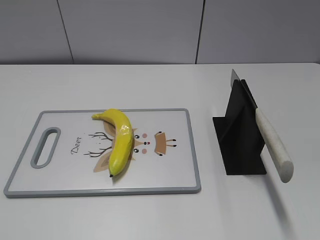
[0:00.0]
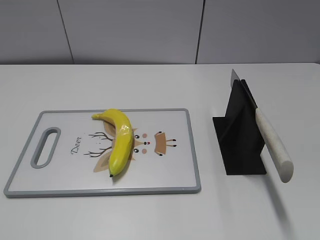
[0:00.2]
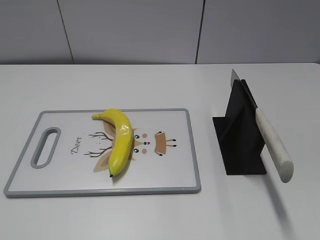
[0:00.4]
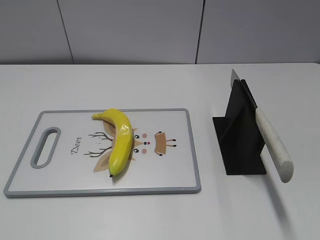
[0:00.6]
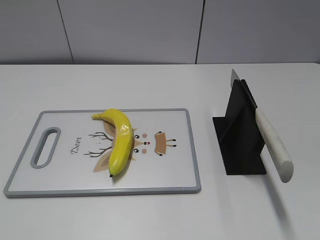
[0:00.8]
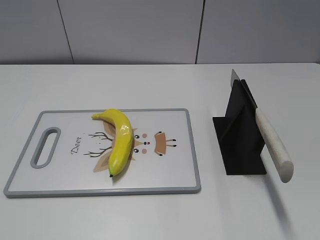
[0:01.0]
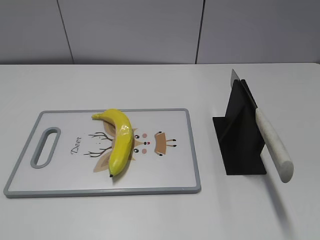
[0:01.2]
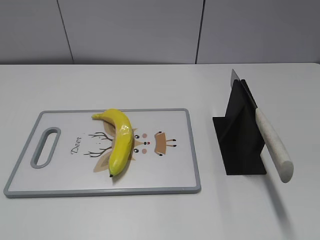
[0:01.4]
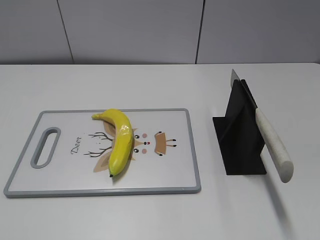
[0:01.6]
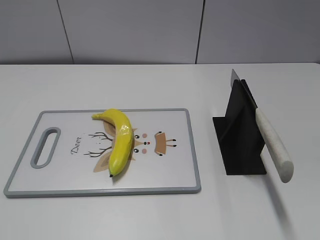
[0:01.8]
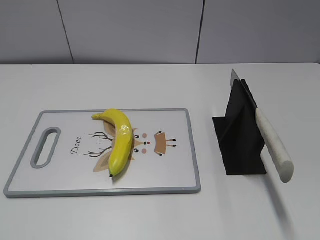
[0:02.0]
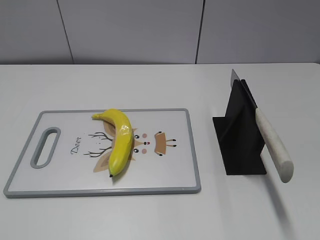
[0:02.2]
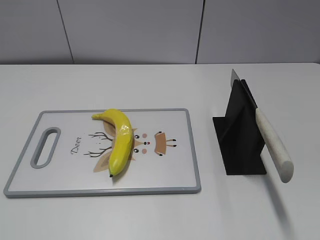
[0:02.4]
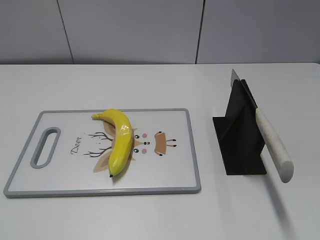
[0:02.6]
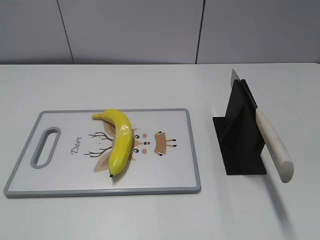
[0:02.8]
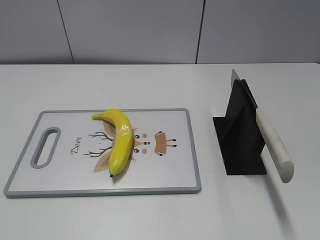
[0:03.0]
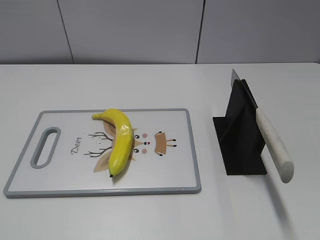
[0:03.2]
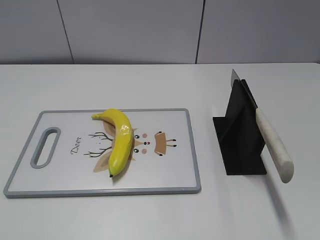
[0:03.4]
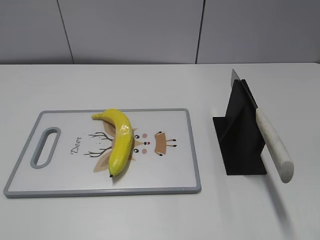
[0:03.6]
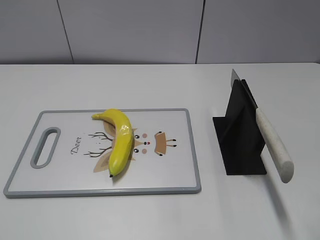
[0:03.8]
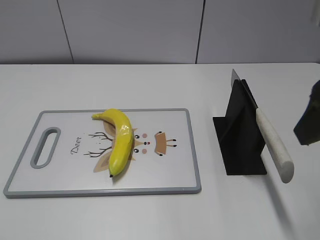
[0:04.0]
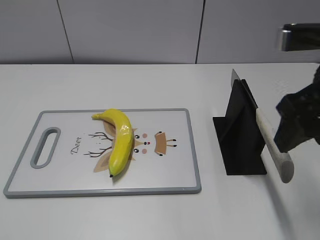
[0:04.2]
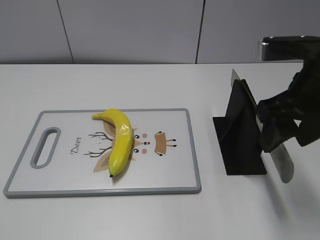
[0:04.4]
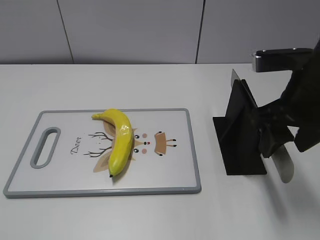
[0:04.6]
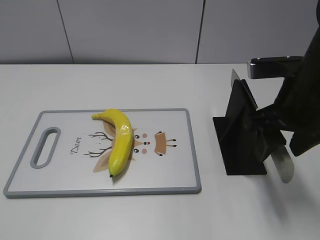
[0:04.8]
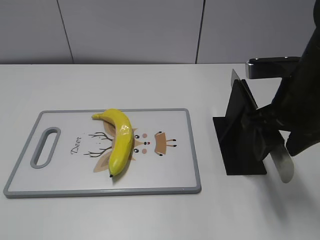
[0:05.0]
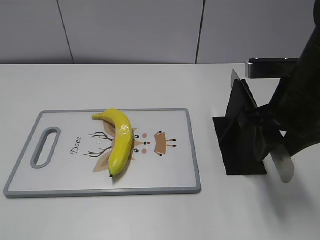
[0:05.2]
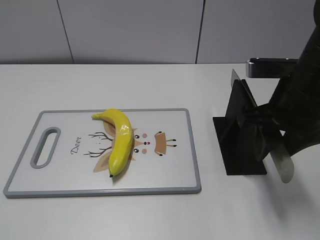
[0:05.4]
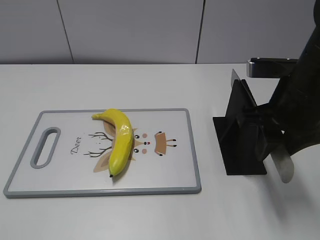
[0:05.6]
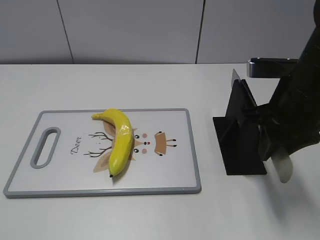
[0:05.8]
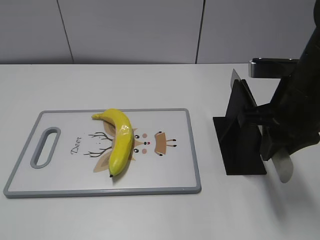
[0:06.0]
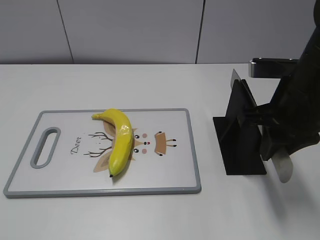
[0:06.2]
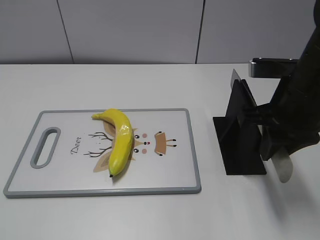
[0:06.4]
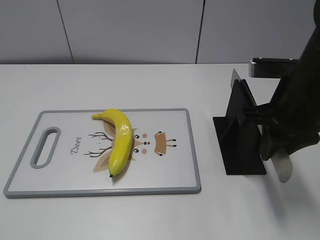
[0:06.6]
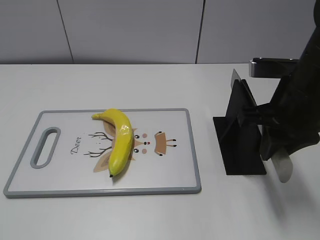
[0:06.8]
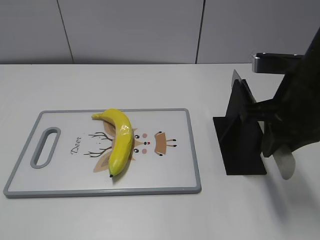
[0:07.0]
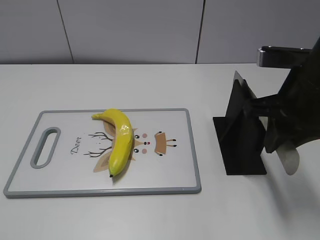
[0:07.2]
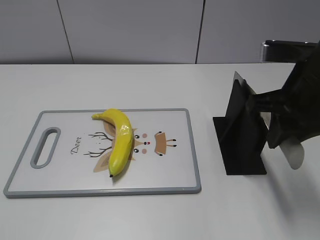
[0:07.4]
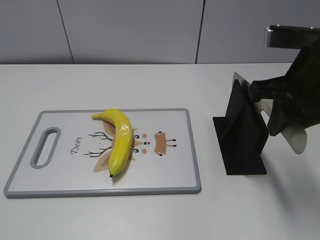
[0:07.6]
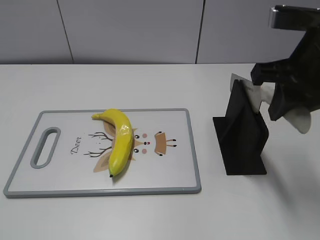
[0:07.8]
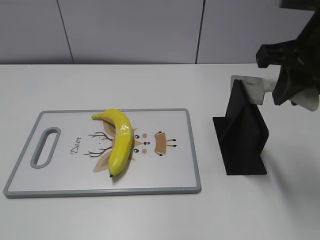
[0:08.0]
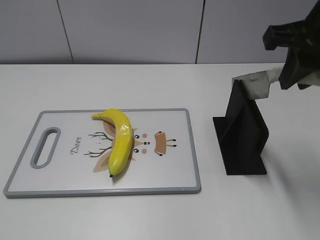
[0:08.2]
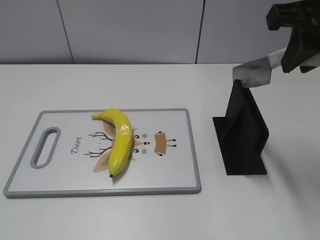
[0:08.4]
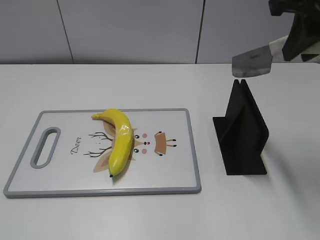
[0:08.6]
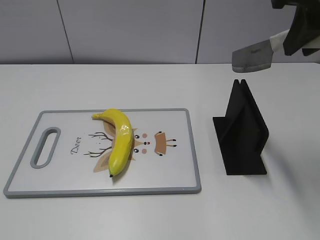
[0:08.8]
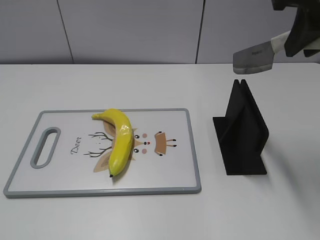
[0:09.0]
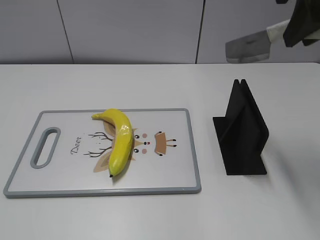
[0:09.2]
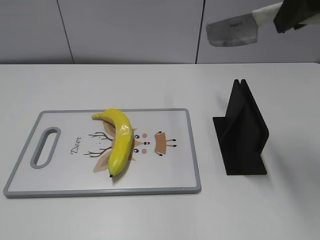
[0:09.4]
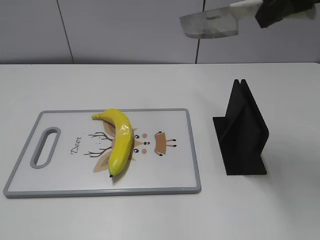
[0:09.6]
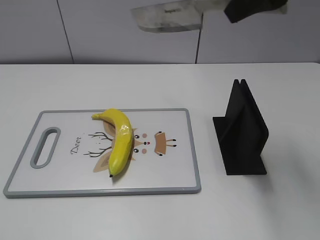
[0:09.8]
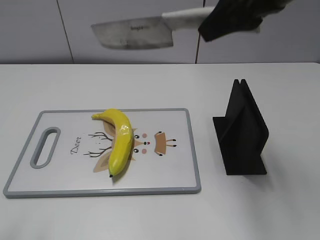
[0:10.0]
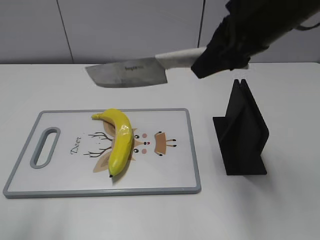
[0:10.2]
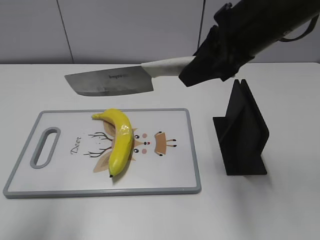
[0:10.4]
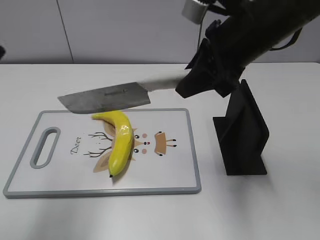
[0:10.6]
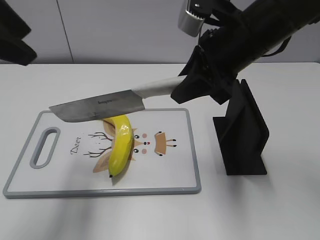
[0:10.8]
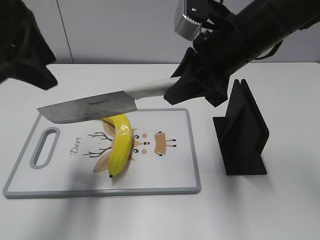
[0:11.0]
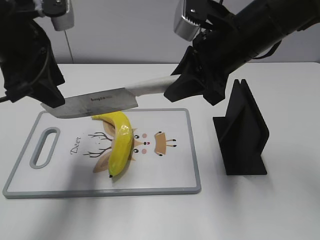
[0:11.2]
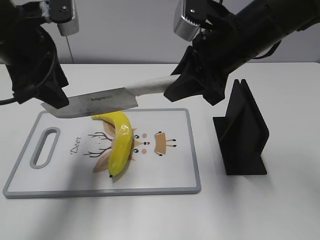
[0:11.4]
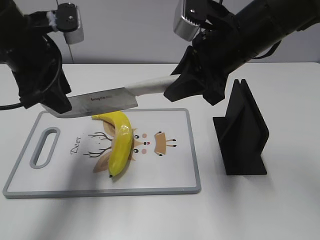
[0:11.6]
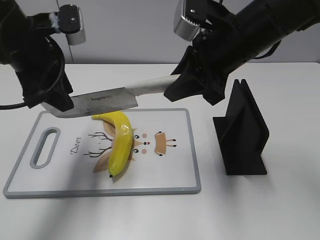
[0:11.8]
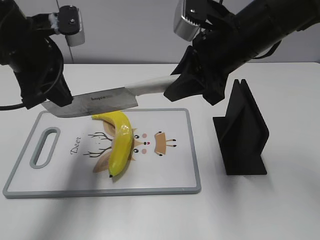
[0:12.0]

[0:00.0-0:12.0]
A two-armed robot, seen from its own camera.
Task of the whole recording: cut plastic banana.
Step, 0:00.0 to 0:07.0: Grab the knife handle with your right hand.
0:03.0 to 0:04.4: The right gripper moves forward and to the left, some 20 cm.
0:04.4 to 0:06.0: The right gripper closes its fingers.
0:06.0 to 0:07.6: The grippers move only a little.
0:07.6 to 0:09.0: The right gripper shifts about 10 cm upward.
0:09.0 to 0:10.4: The right gripper is displaced downward and to the left by roughly 10 cm. Meanwhile the left gripper travels forward and upward by about 15 cm.
0:10.4 to 0:12.0: The right gripper changes place by some 5 cm. The left gripper heads forward, downward and to the right, covering approximately 20 cm, and closes its fingers.

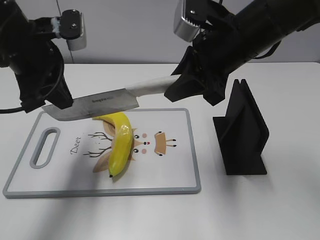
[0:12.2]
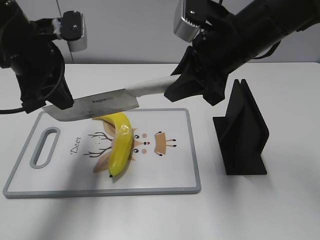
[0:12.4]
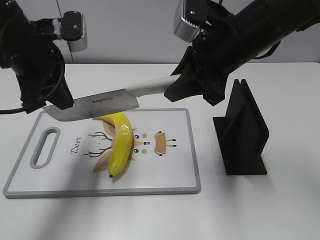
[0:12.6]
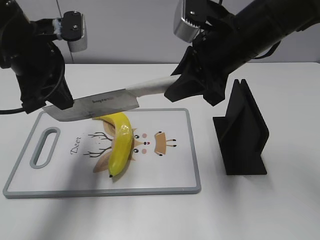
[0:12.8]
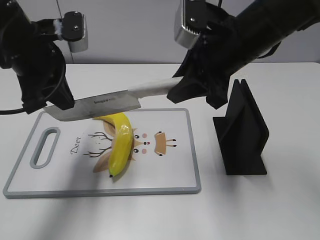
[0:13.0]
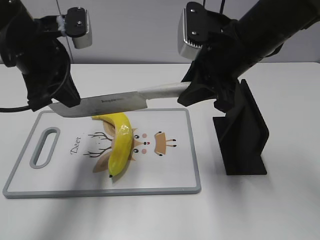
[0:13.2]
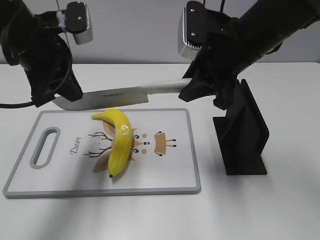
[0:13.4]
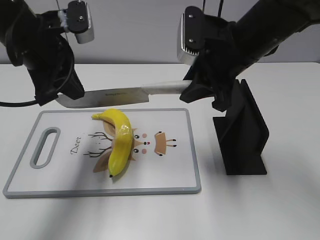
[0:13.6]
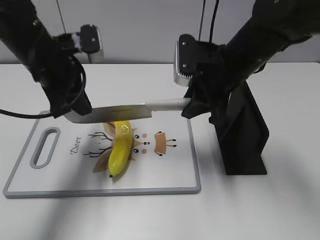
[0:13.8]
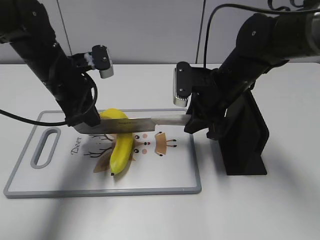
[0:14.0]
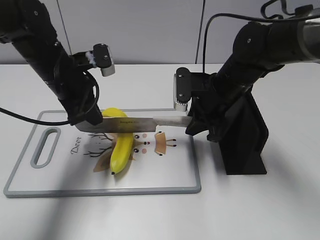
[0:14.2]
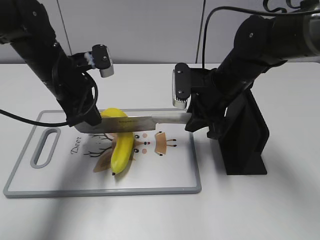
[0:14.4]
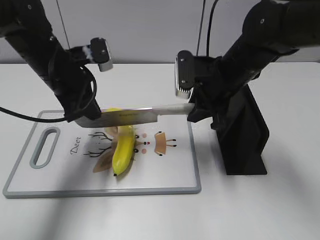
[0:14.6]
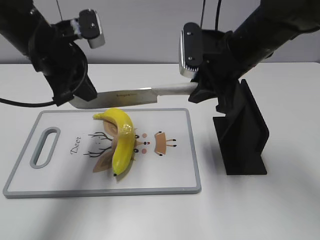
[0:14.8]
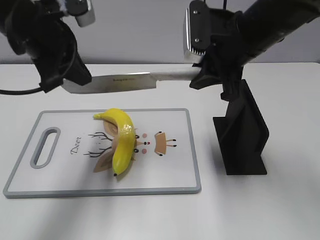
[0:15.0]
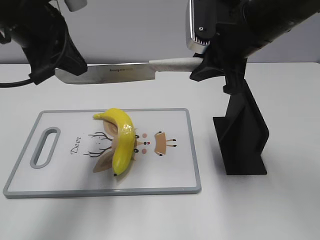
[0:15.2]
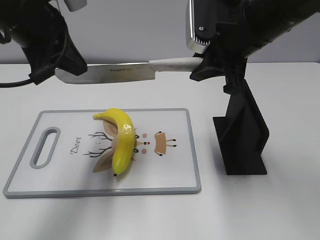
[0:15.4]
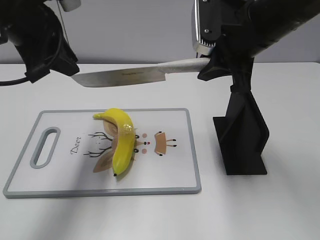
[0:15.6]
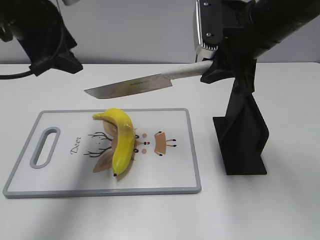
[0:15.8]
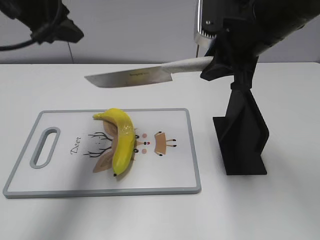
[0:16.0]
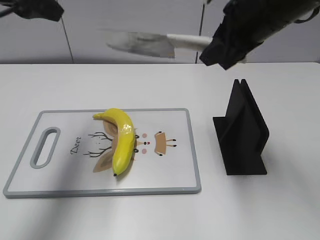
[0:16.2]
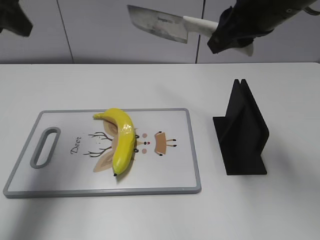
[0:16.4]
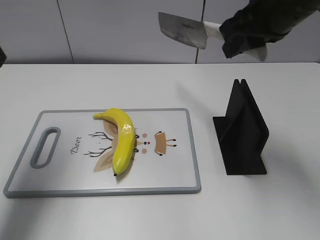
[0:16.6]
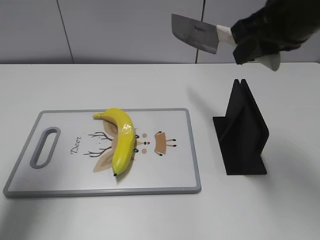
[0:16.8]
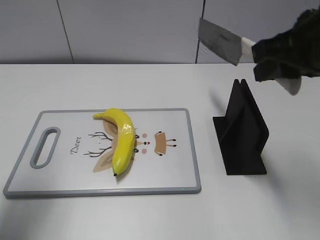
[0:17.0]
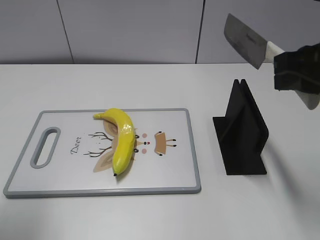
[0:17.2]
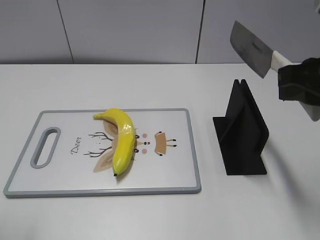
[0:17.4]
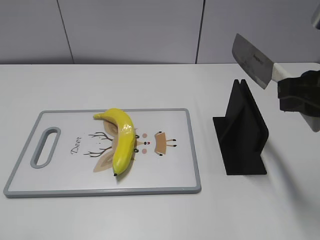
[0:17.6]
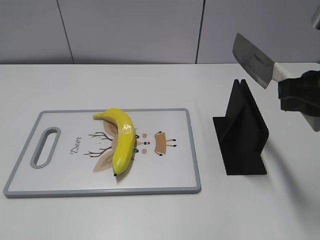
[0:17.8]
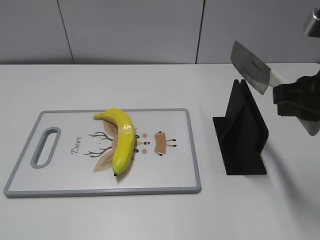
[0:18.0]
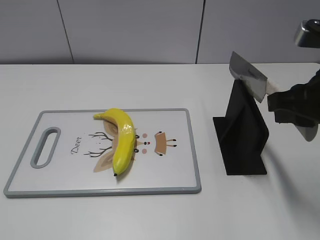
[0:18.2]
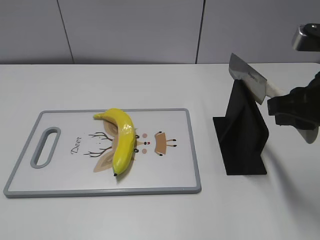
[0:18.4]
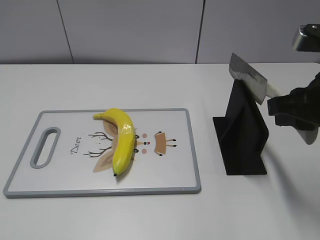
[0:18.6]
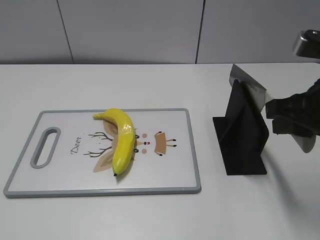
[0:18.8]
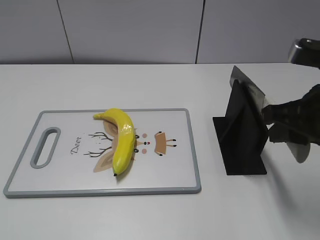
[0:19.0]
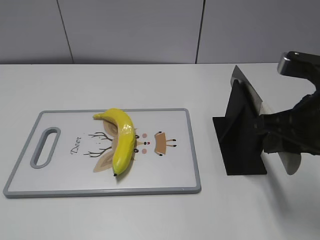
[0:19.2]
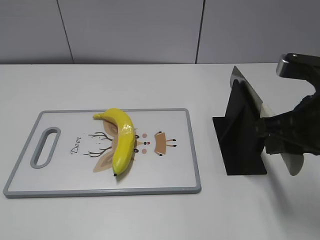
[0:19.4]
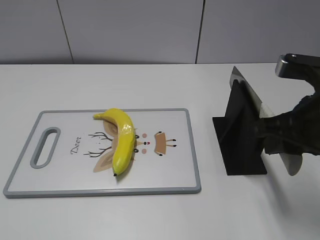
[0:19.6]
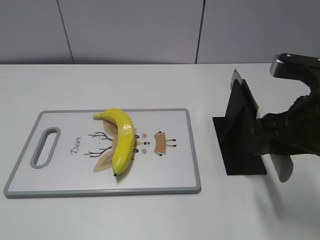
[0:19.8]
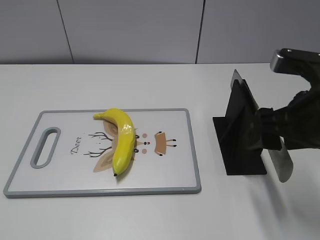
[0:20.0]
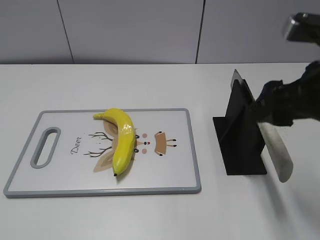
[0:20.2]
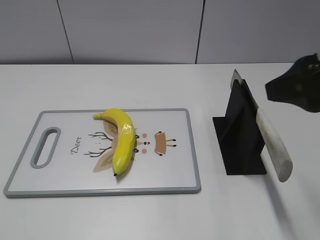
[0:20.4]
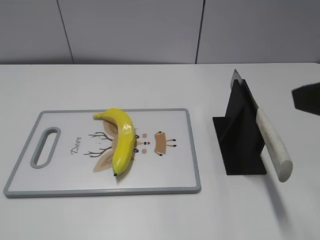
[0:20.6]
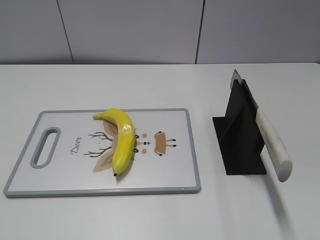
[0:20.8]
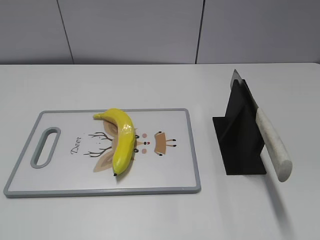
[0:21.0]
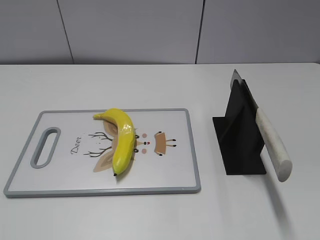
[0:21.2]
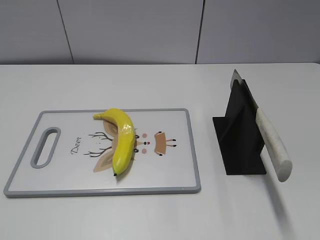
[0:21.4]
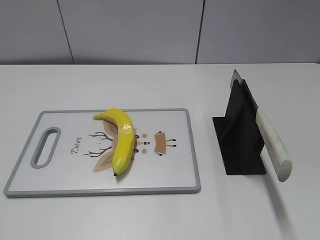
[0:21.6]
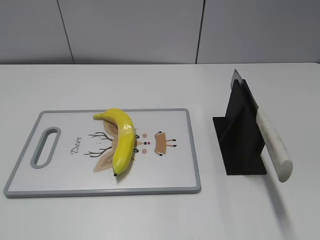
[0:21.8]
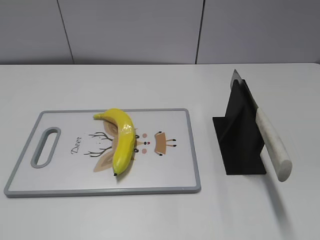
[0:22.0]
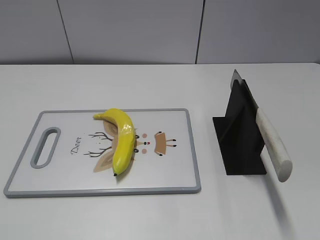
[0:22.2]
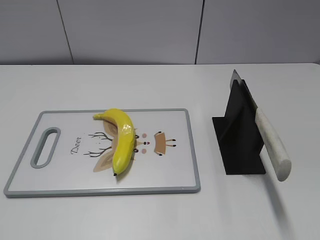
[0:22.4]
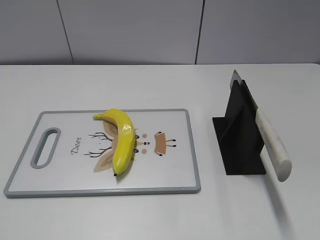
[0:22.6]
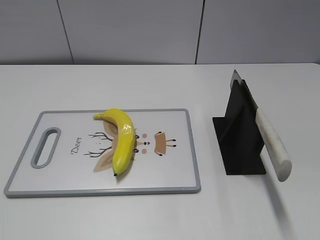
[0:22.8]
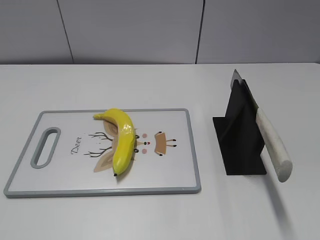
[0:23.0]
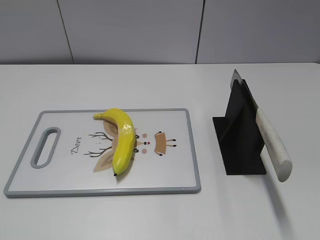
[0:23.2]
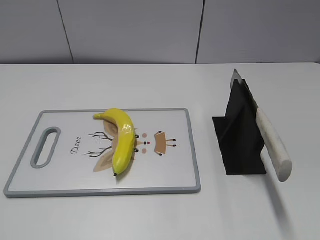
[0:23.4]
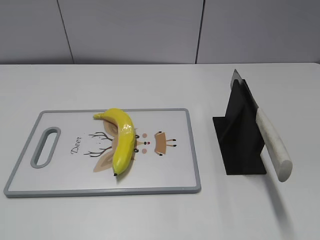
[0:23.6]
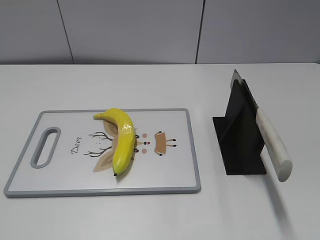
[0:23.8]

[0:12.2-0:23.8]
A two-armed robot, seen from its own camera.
Task of the whole recording: cut plastic banana.
Step, 0:12.2 to 0:15.2: Lift the knife with your right hand.
Step, 0:15.4 to 0:17.4: Cut the banana with your right hand.
Step, 0:17.8 to 0:18.6: Lift the knife with your right hand.
Step, 0:18.8 to 0:23.8: Place the knife on the storage rack with your right hand.
0:12.2 to 0:13.6: The grippers move only a little.
0:13.6 to 0:15.0: The left gripper travels downward and back again, roughly 10 cm each way, while the right gripper goes downward and returns, roughly 10 cm each way.
0:15.0 to 0:16.6: The left gripper heads to the left and upward, covering about 10 cm, and opens its fingers, while the right gripper moves upward, about 5 cm.
0:16.6 to 0:18.0: The left gripper is displaced backward by about 30 cm, while the right gripper shifts some 15 cm backward, to the right and downward.
0:18.0 to 0:19.4: There are only small adjustments of the grippers.
0:19.4 to 0:21.0: The right gripper moves backward, upward and to the right, about 20 cm, and opens.
